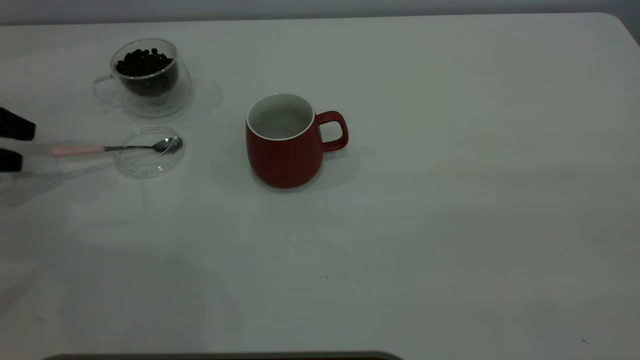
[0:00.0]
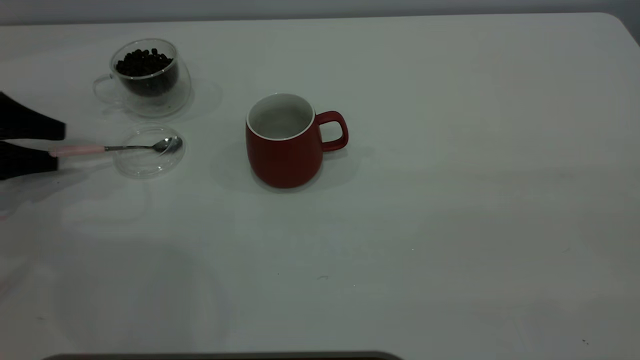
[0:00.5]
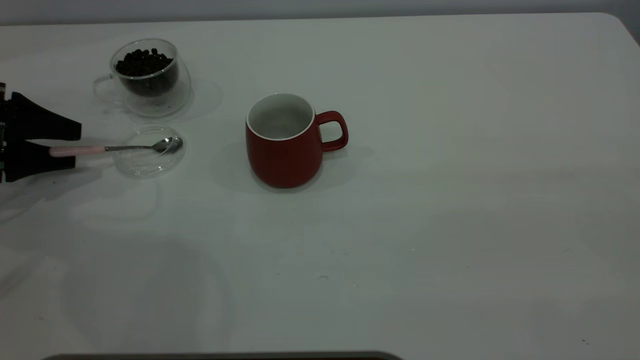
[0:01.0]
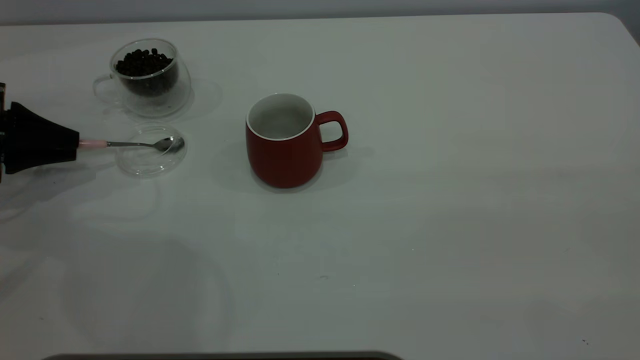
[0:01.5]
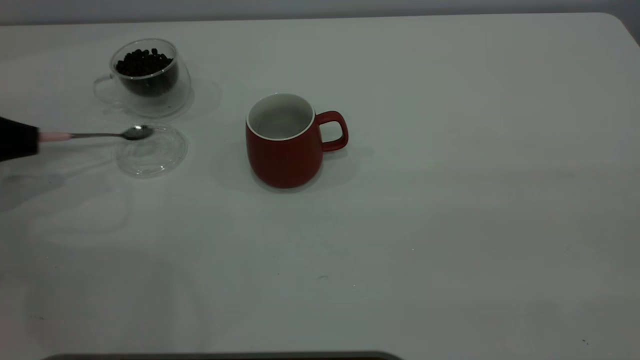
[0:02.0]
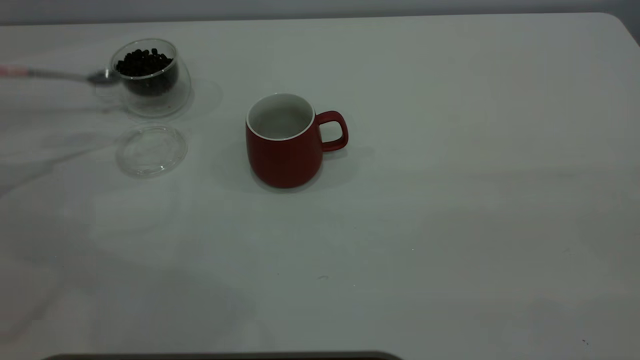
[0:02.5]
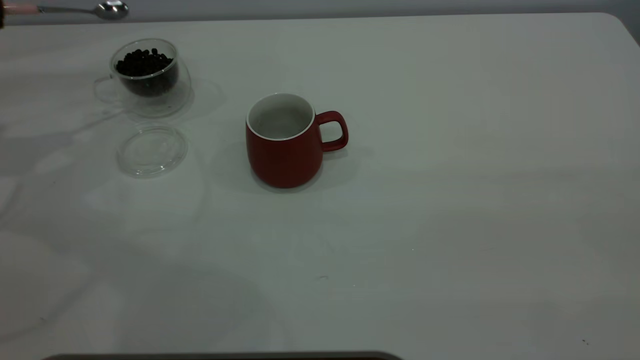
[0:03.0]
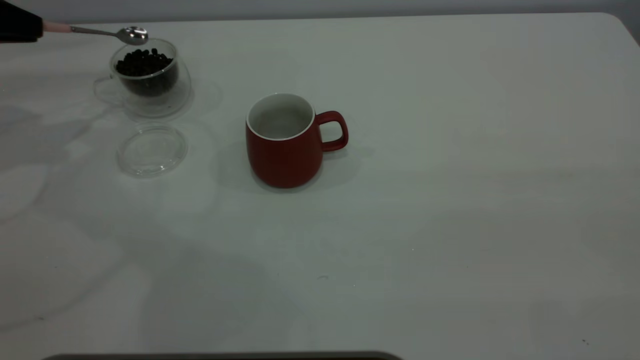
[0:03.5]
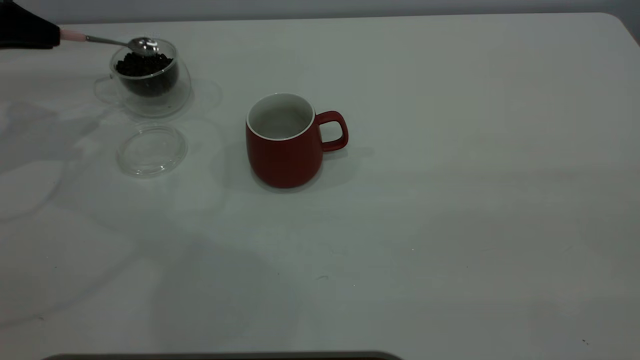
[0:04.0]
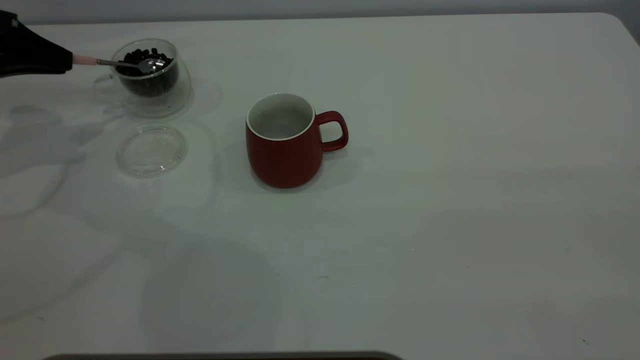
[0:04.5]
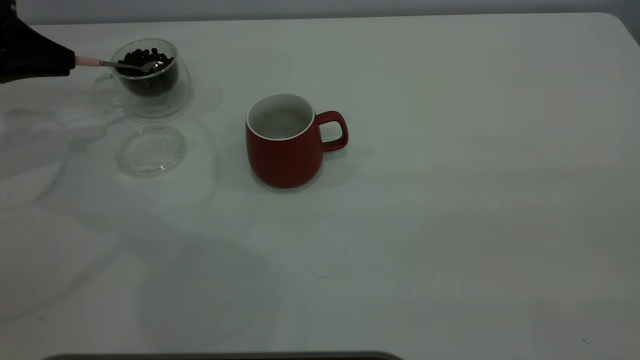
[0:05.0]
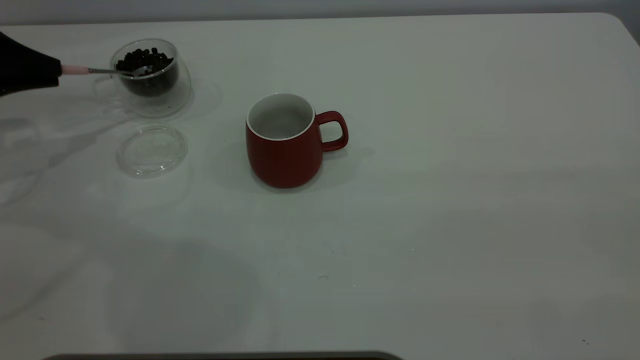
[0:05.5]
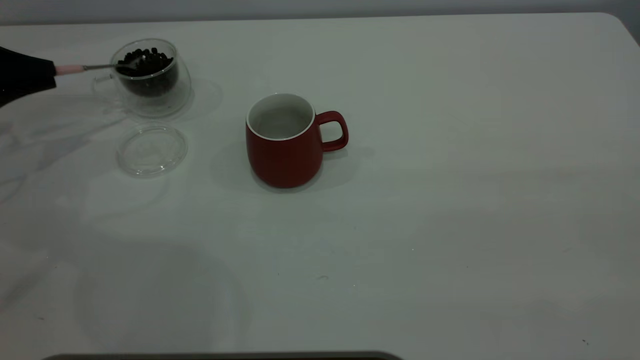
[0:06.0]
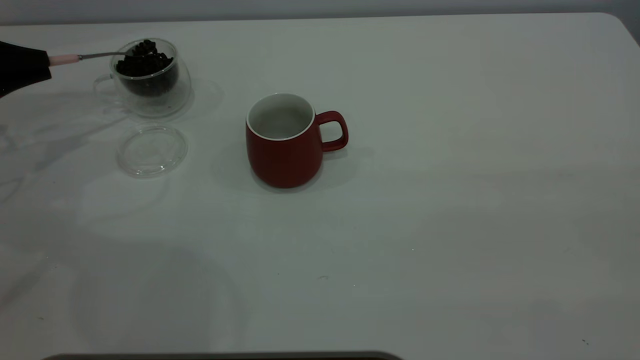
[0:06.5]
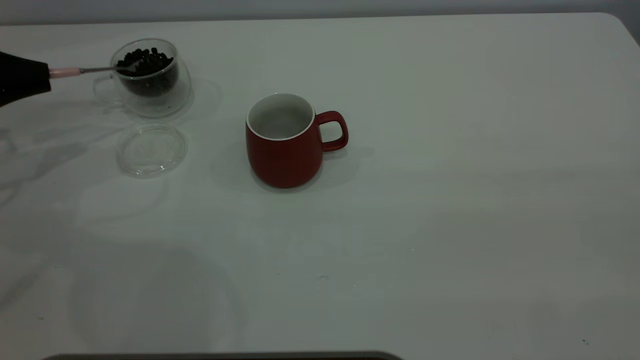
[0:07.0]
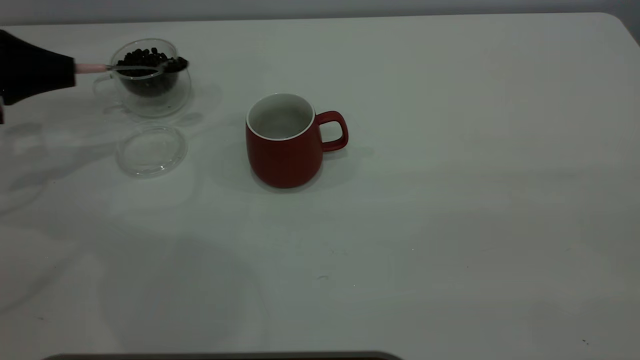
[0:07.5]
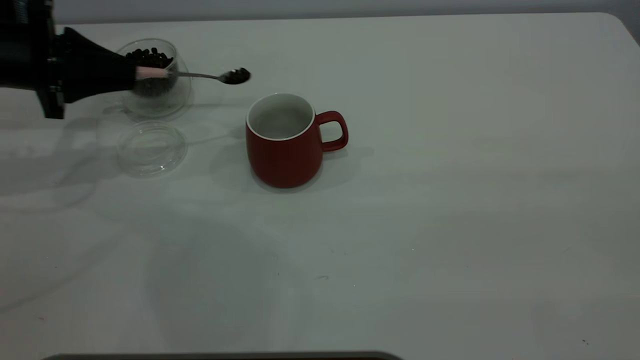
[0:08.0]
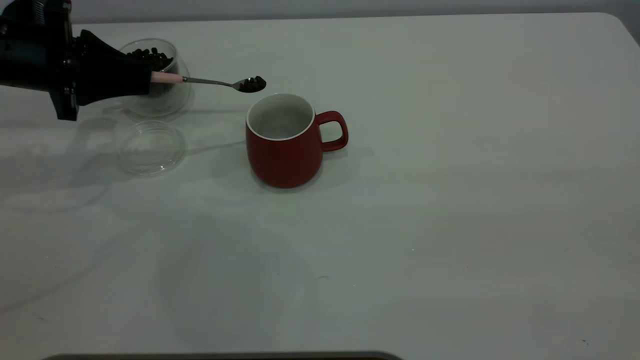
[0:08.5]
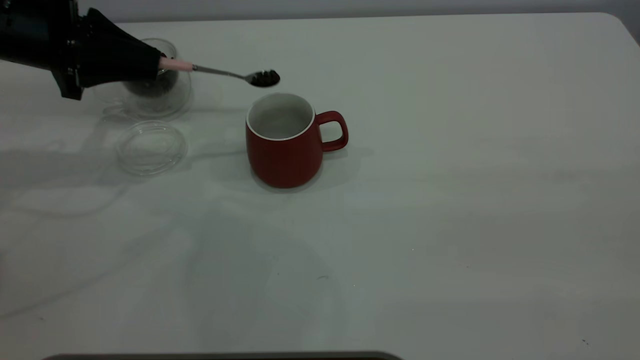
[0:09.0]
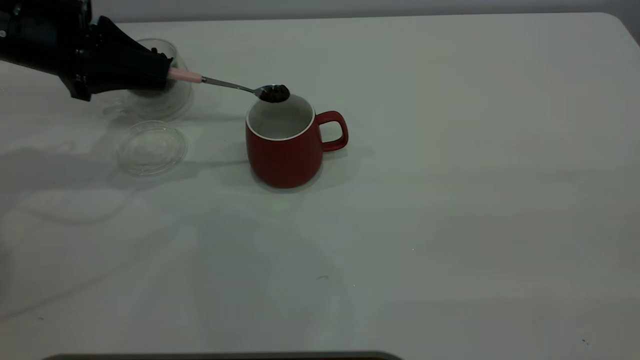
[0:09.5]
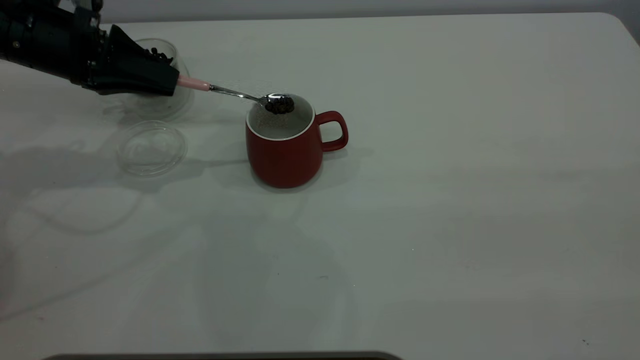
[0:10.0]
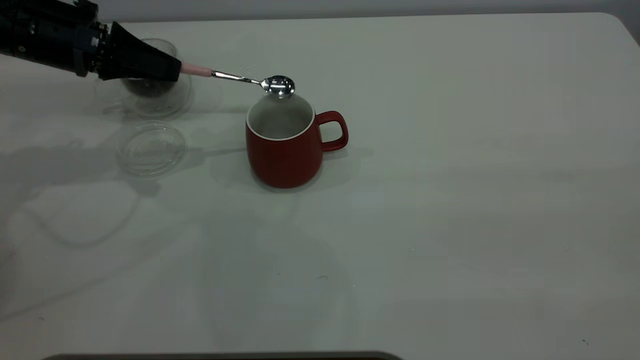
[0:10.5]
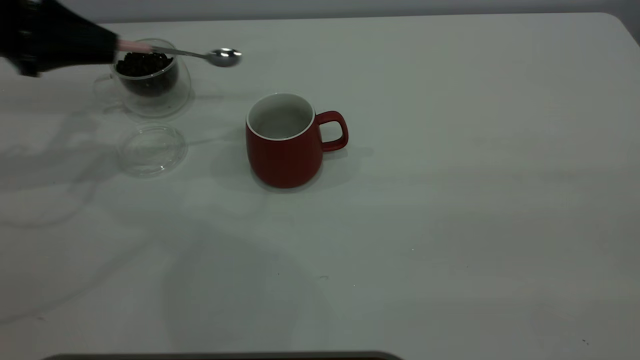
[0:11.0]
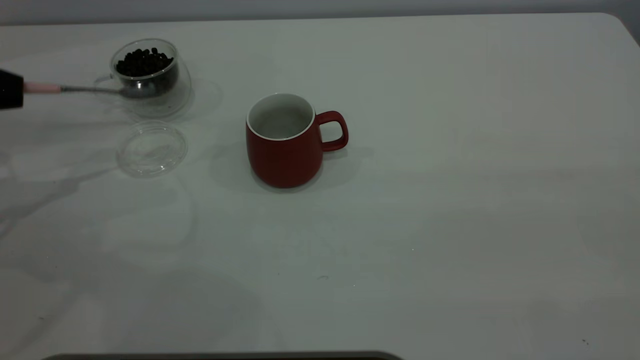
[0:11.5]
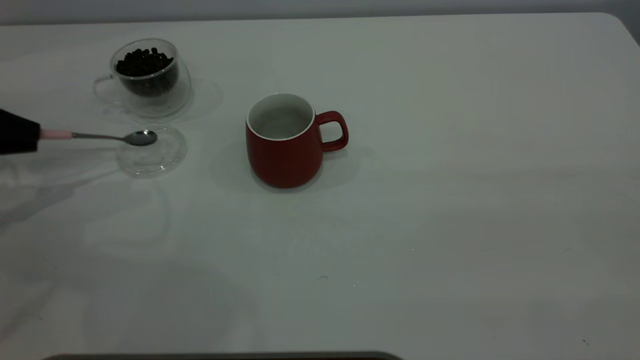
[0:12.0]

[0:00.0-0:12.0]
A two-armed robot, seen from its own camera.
Task of the whole recording: the right gripper place the red cup in the center of the table, the left gripper take the pink spoon from the cup lid and scoop out the coffee beans from the coffee cup and put them into the red cup, the left gripper put the spoon back into the cup lid.
Step, 0:00.0 to 0:02.0: Pick up the spoon.
Step, 0:02.5 to 0:10.5: Scoop a spoonful of beans into the cup.
0:00.0 to 0:02.0: The left gripper closes its fingers.
0:02.0 to 0:04.0: The left gripper heads upward, forward and to the right, covering roughly 15 cm.
0:04.0 to 0:06.0: The left gripper is displaced downward by roughly 5 cm.
0:06.0 to 0:08.0: The left gripper moves to the right, about 10 cm.
0:08.0 to 0:10.0: The left gripper moves roughly 5 cm.
0:10.0 to 0:12.0: The left gripper shifts some 15 cm to the left and backward.

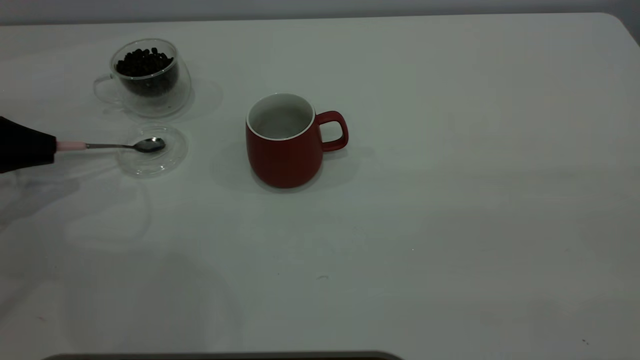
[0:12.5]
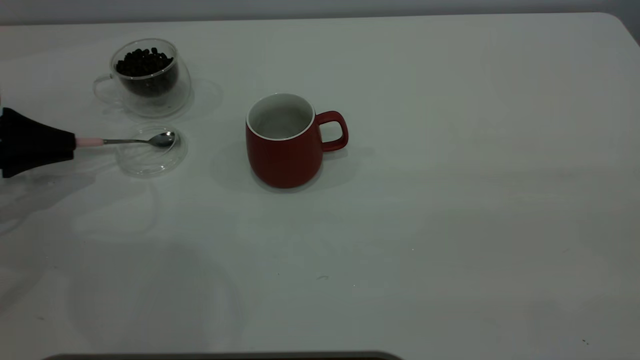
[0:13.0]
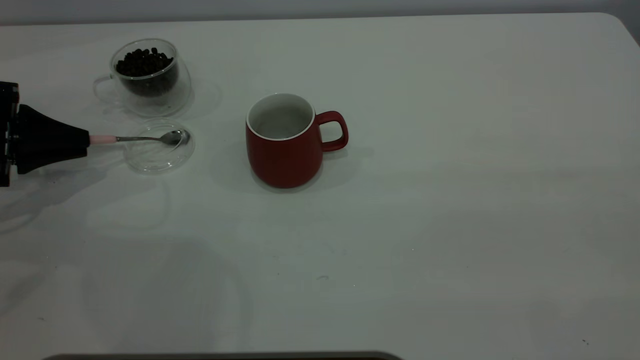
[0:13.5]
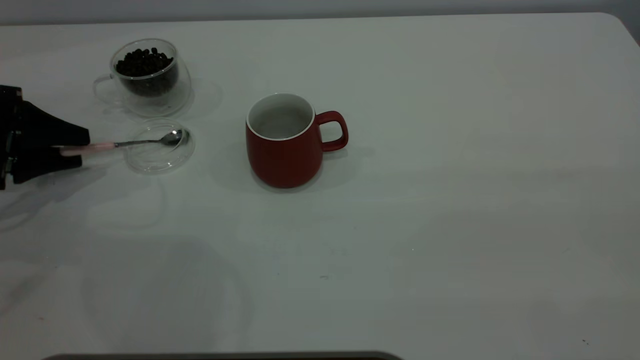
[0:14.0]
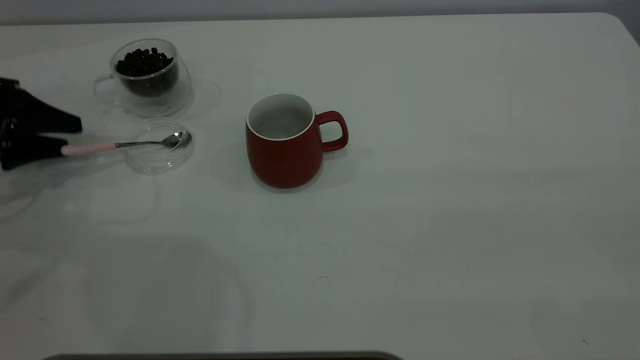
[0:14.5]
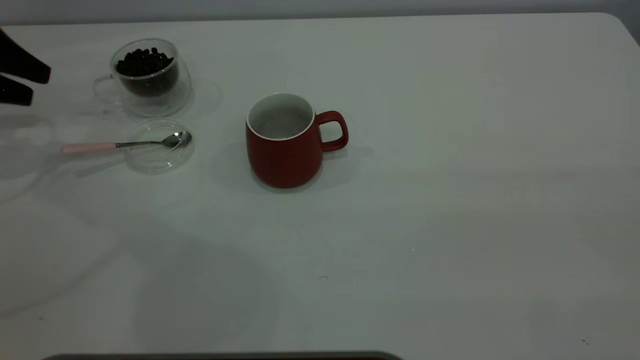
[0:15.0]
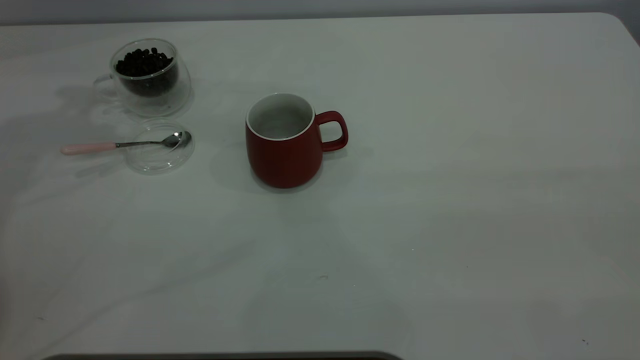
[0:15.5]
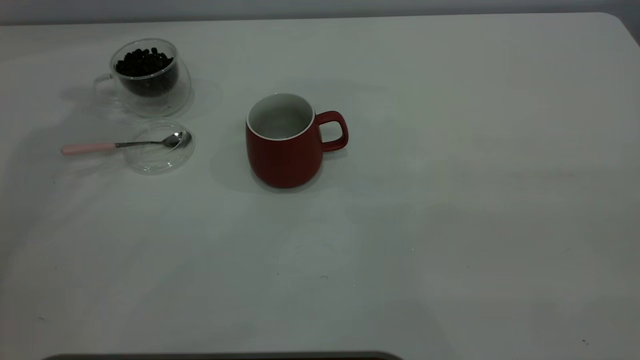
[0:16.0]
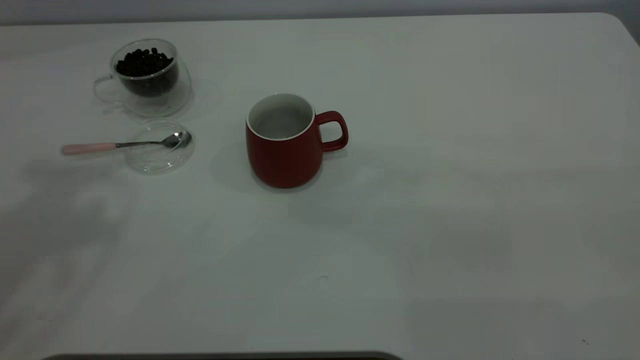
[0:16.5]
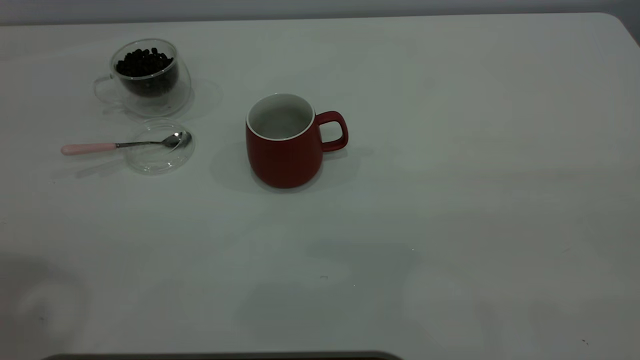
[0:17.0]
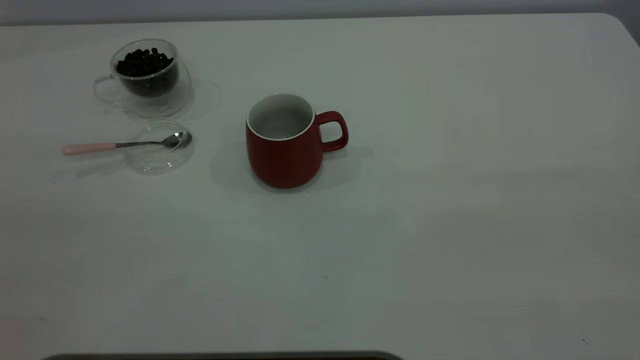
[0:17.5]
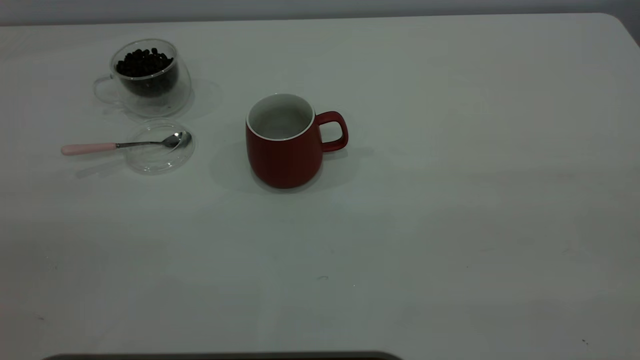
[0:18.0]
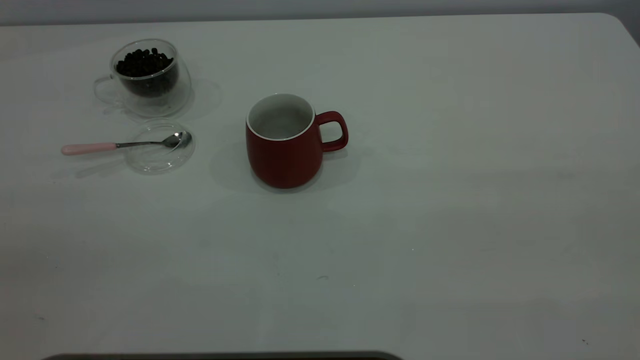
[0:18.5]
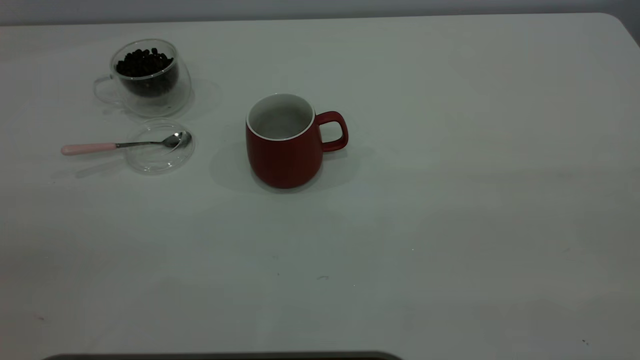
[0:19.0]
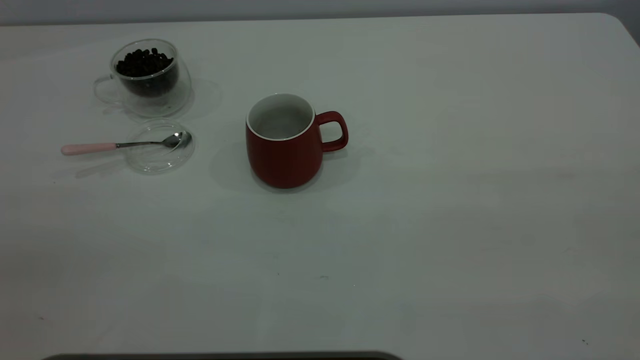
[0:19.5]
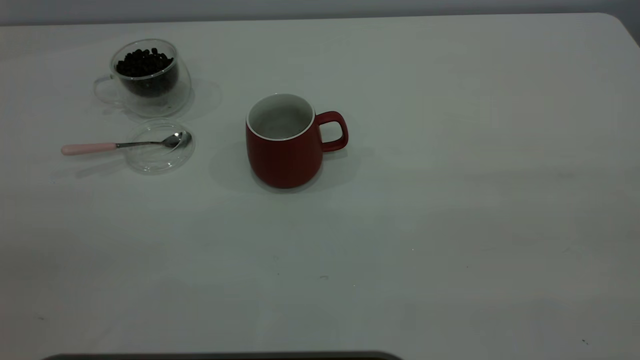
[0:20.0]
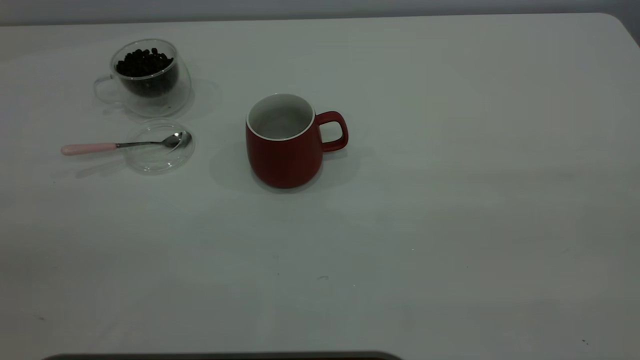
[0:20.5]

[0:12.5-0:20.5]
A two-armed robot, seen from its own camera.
Task of the whole recording: the right gripper place the red cup in the center of the table, the left gripper take the pink spoon from the cup lid and scoop out the coffee beans from the coffee cup and put them into the red cup, the left gripper put the spoon back into the cup lid.
Step, 0:12.5 to 0:14.5: Place the spoon back in its original place.
0:12.5 to 0:14.5: The left gripper opens up.
0:14.5 to 0:16.5: The left gripper heads upward, covering approximately 40 cm.
0:18.5 to 0:20.5: The two grippers keep their place.
